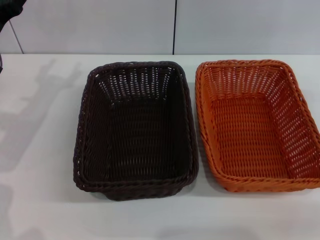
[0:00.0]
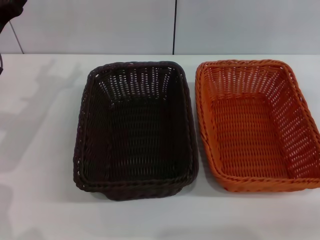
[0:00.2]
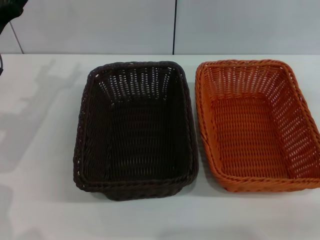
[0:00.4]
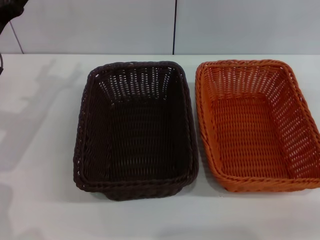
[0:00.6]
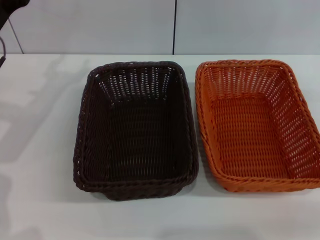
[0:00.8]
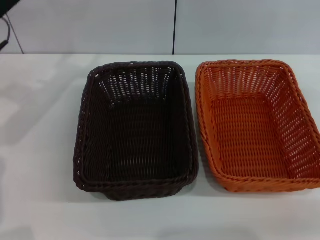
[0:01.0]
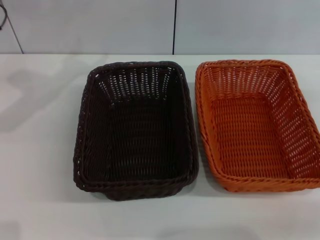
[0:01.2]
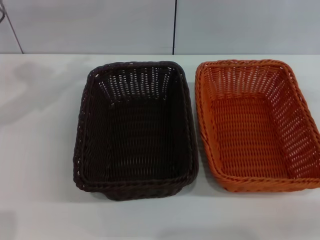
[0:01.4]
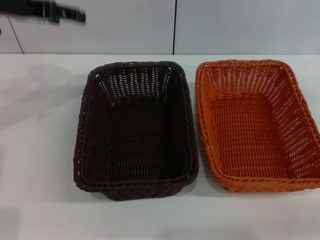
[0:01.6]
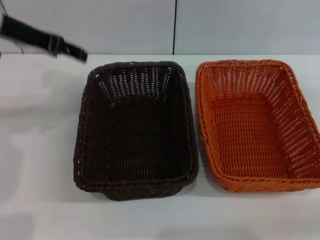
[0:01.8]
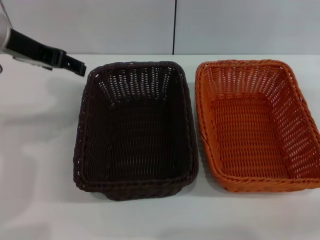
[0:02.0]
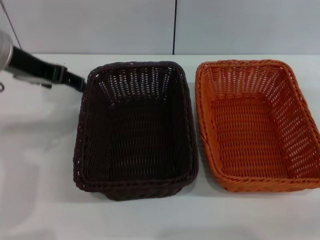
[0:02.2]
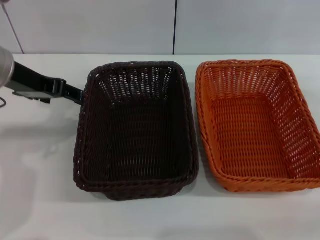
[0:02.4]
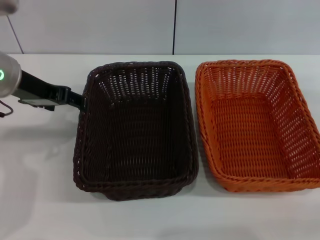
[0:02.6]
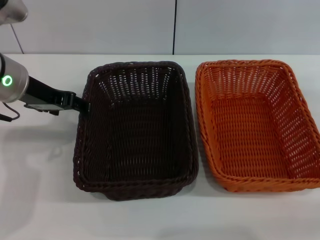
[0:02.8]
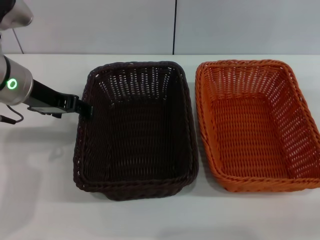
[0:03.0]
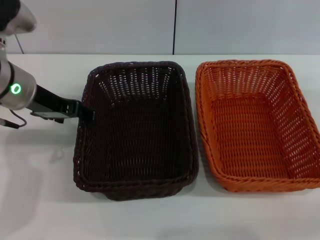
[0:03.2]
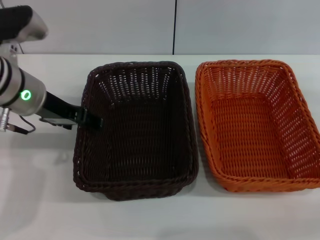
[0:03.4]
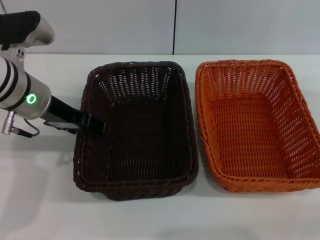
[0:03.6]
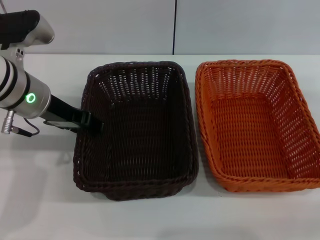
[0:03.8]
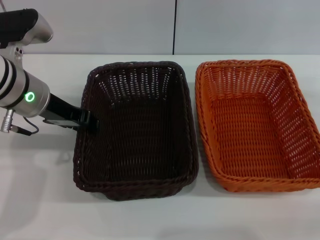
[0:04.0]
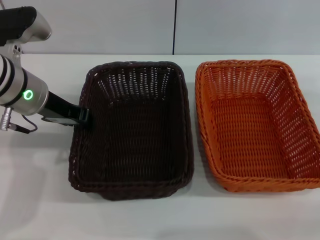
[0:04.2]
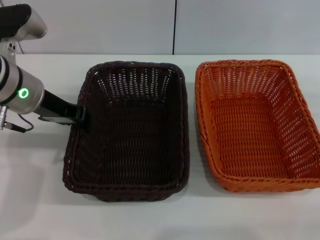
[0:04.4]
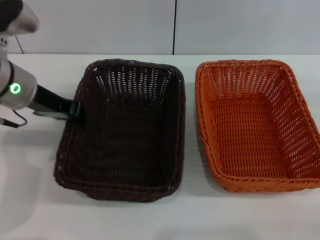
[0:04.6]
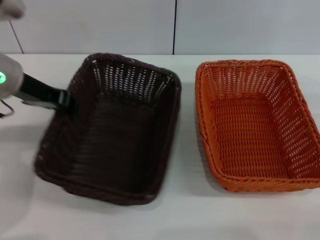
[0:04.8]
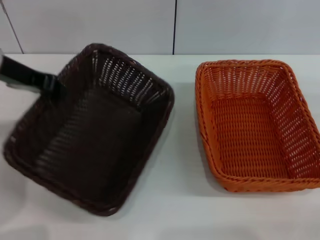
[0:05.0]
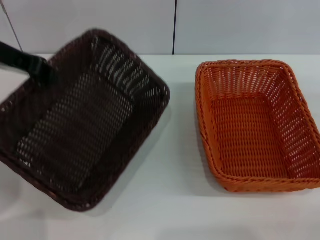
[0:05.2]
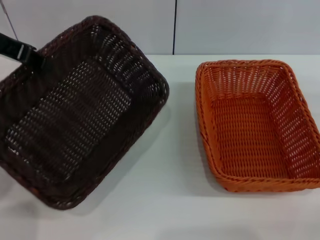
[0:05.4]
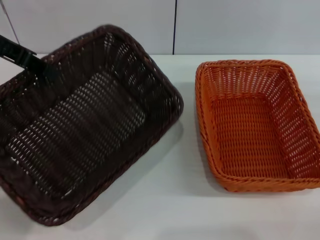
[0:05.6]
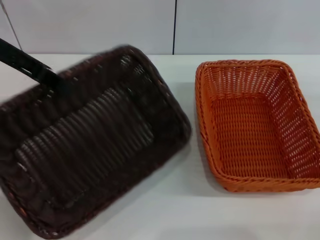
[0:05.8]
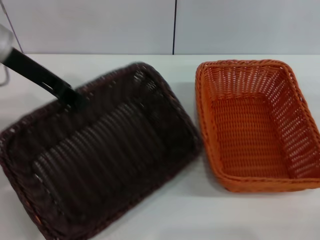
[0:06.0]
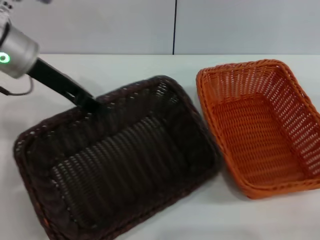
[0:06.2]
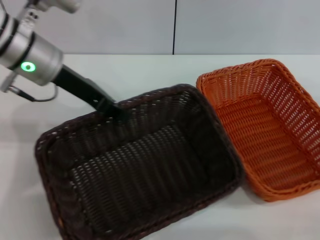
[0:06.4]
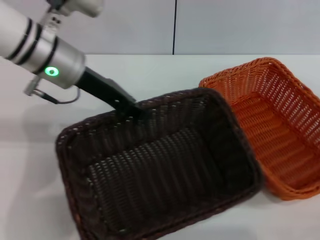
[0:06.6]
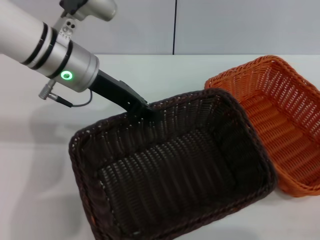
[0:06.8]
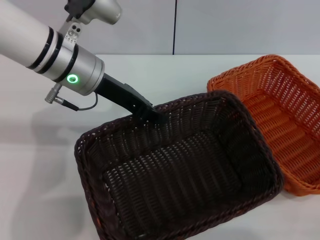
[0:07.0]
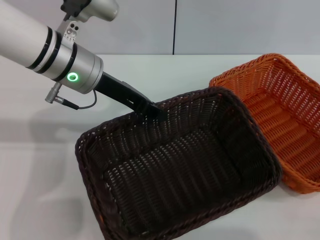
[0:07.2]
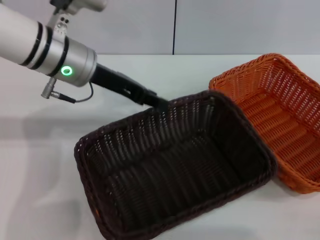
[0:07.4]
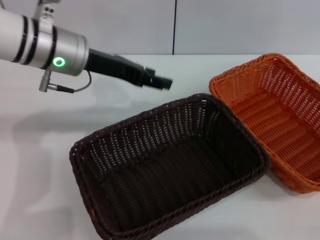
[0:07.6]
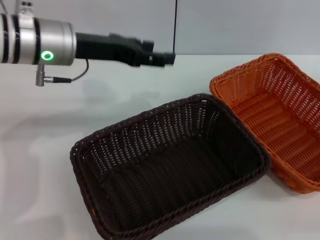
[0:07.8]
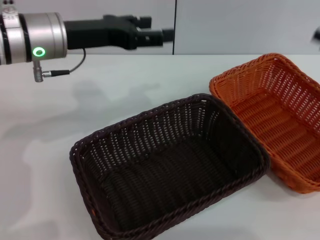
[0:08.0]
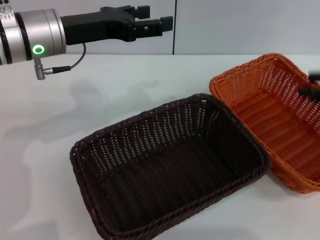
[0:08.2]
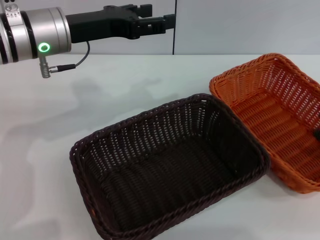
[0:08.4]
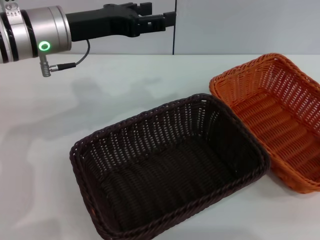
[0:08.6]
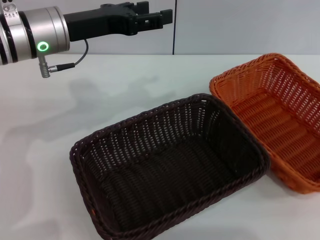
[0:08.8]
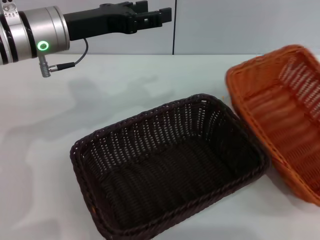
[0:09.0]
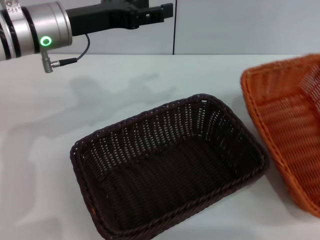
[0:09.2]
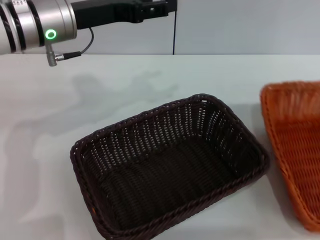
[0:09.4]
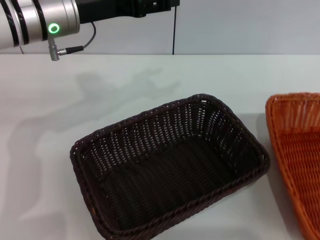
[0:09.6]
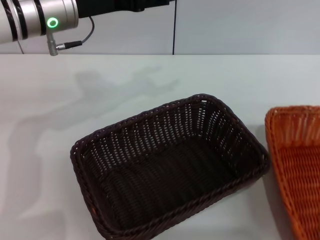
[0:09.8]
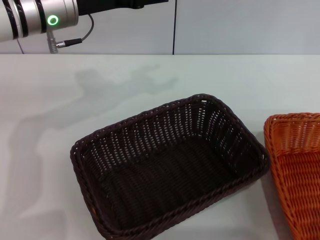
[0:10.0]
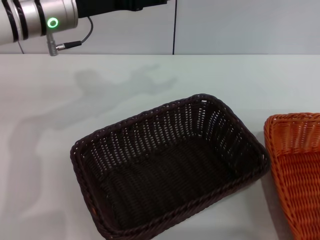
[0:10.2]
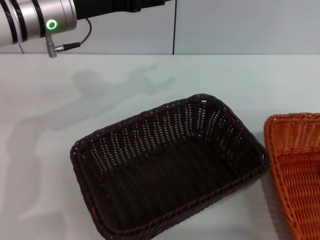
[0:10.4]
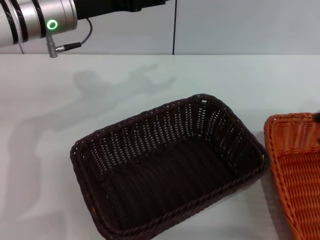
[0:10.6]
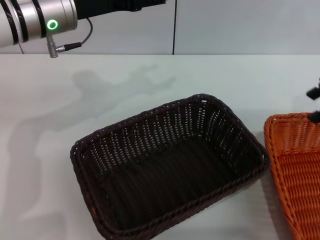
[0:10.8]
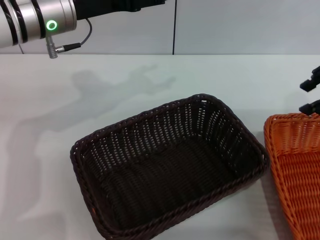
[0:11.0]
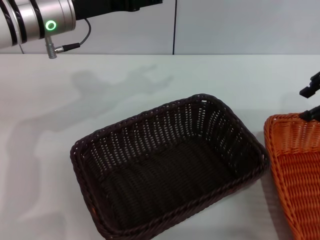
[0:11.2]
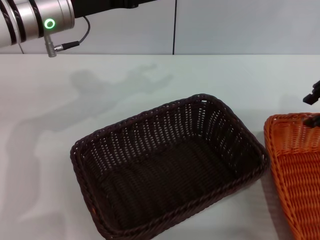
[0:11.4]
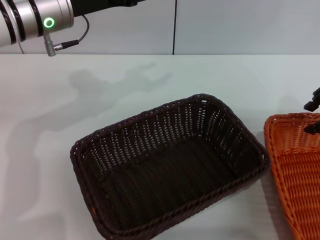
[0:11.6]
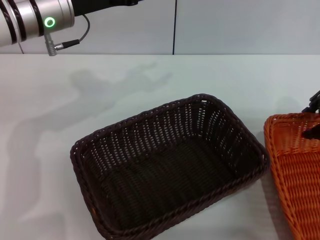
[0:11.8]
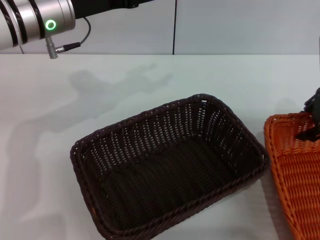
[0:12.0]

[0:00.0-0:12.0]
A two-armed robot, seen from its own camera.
Step, 0:00.0 to 0:04.6: Pick up the dark basket with the left gripper.
Step, 0:04.8 to 0:07.4: Place the dark basket in the center of view with the left gripper.
0:00.0 to 0:01.6: The left gripper heads upward, covering some 15 cm.
0:01.6 to 0:03.0: The left gripper shifts about 10 cm downward, to the right and backward.
0:03.0 to 0:04.4: The left gripper closes its fingers.
0:04.4 to 0:06.0: The left gripper goes about 5 cm upward.
0:06.0 to 0:07.6: The left gripper travels to the right by roughly 10 cm.
0:07.6 to 0:09.0: The right gripper heads upward, covering about 5 cm. Meanwhile the left gripper opens up.
0:09.0 to 0:10.4: The right gripper ends up approximately 5 cm from where it was.
0:10.4 to 0:12.0: The right gripper is displaced forward by some 5 cm.

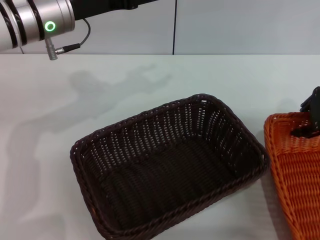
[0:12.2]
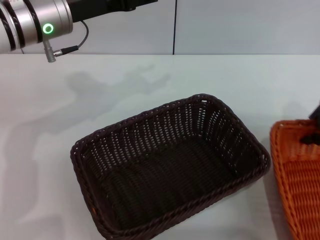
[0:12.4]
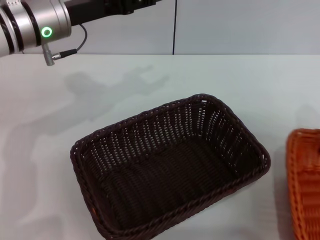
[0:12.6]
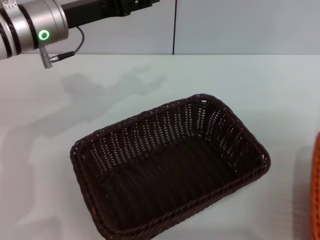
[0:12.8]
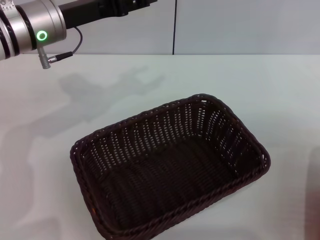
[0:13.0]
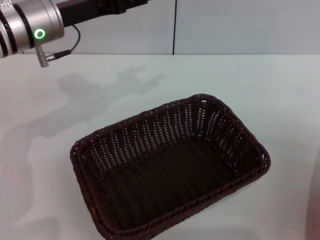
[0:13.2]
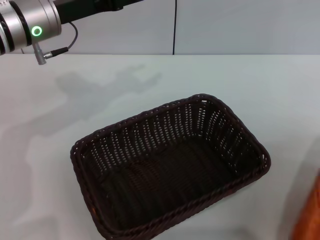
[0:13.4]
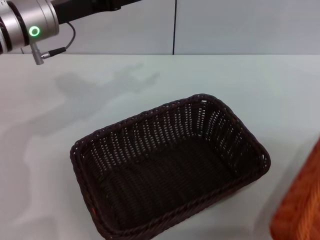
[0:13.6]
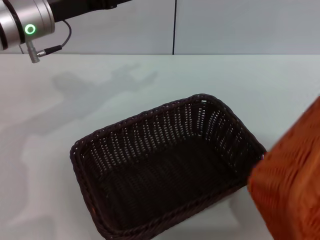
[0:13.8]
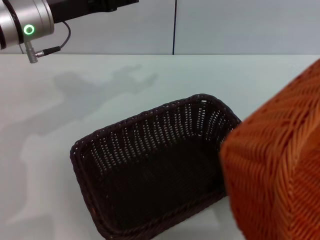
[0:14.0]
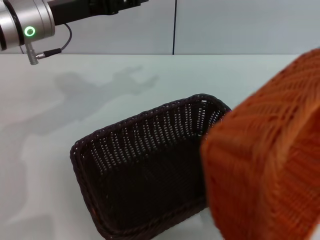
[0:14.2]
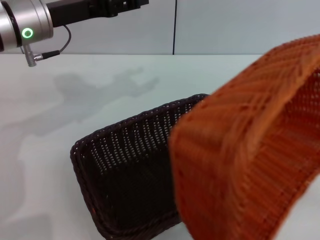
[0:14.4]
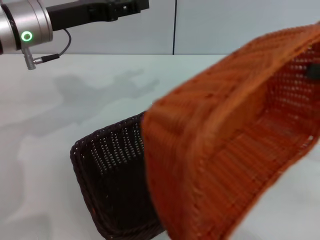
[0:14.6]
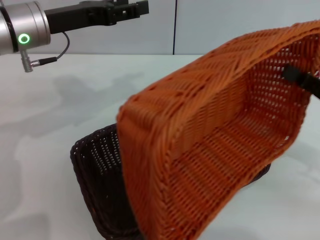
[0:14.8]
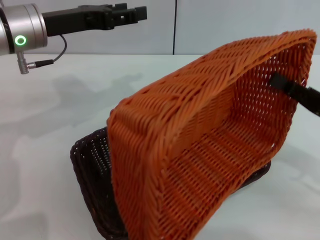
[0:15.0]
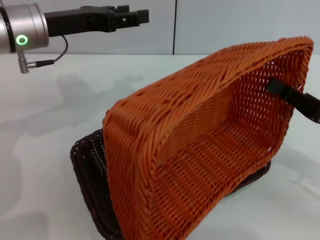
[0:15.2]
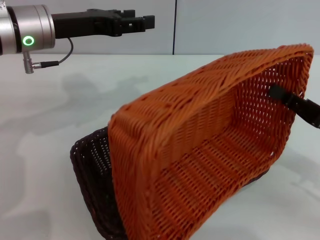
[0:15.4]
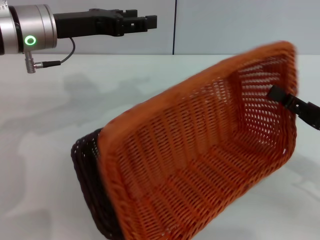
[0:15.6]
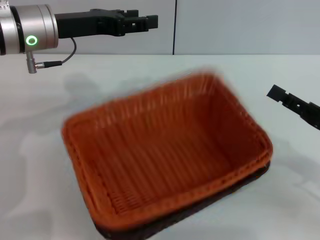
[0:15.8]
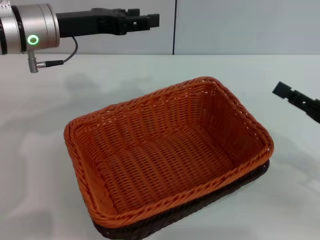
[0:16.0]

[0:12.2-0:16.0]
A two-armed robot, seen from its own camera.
Step, 0:13.0 to 0:15.6: Place the light basket on the dark basket with the right gripper.
0:12.2 to 0:13.4: The right gripper shifts roughly 15 cm to the right and backward, and closes up.
0:13.4 to 0:14.8: The right gripper is displaced to the left and downward by approximately 20 cm.
0:14.8 to 0:16.0: The right gripper opens up.
